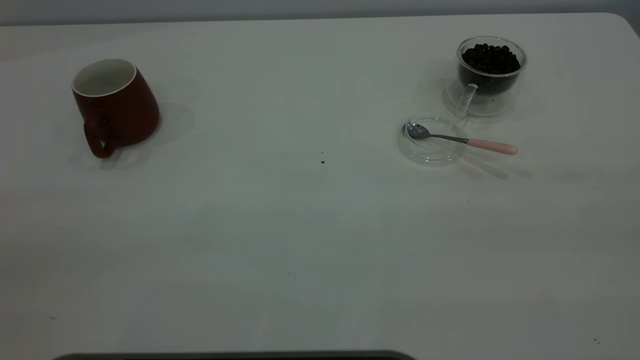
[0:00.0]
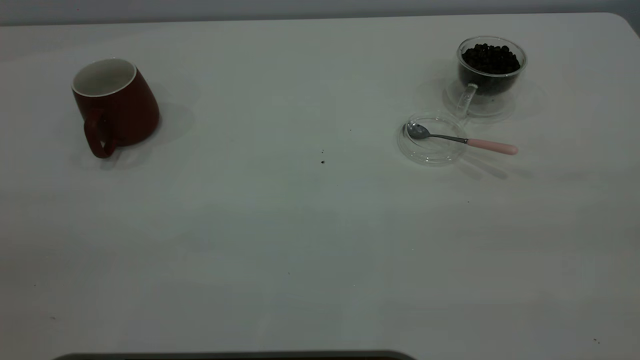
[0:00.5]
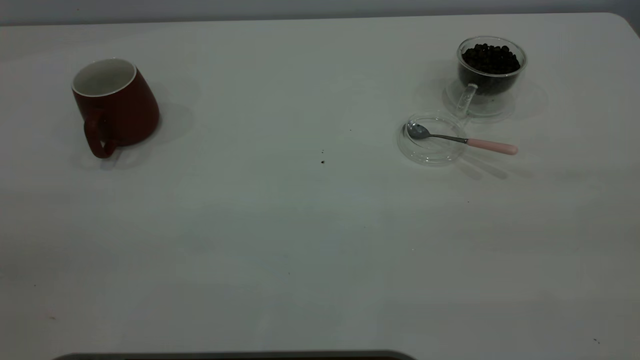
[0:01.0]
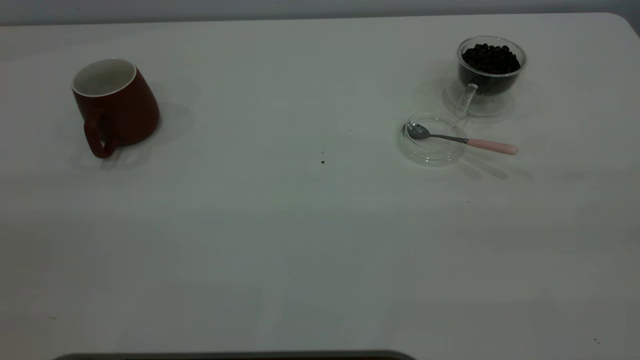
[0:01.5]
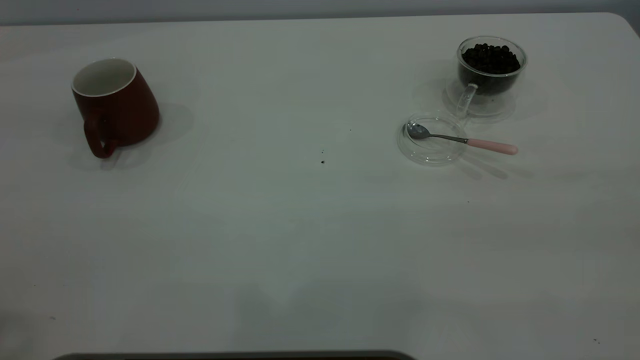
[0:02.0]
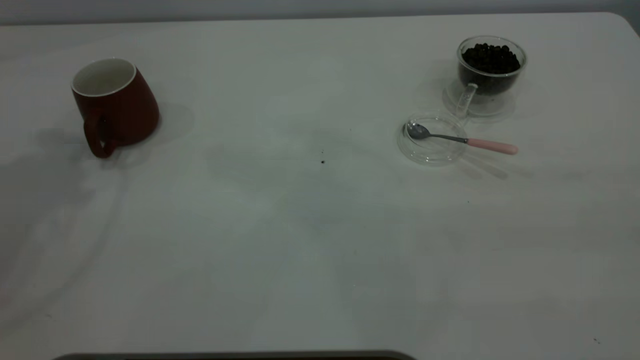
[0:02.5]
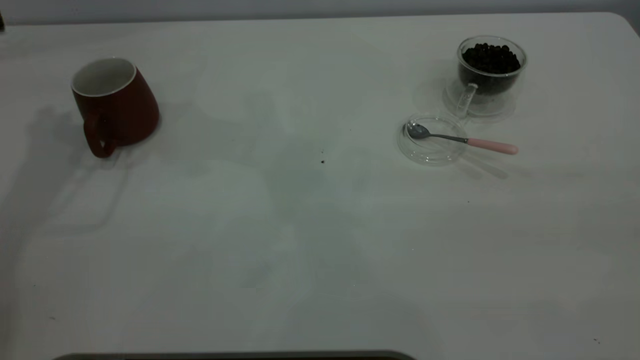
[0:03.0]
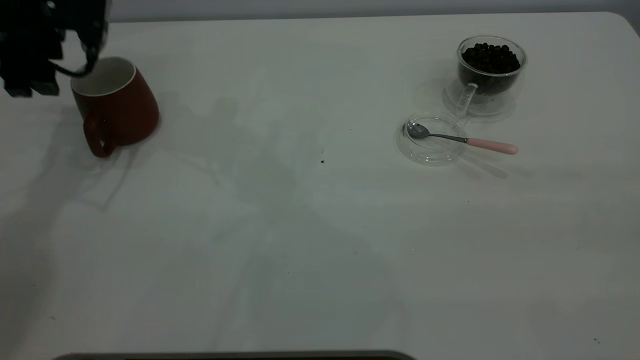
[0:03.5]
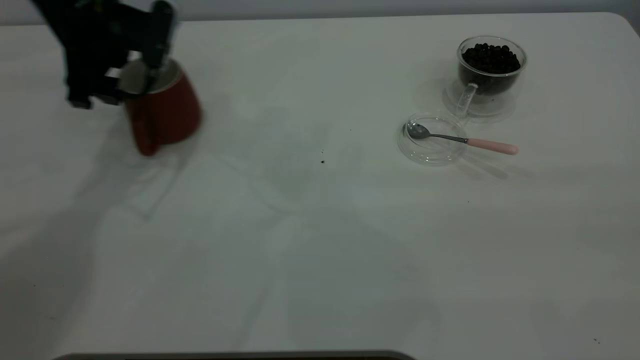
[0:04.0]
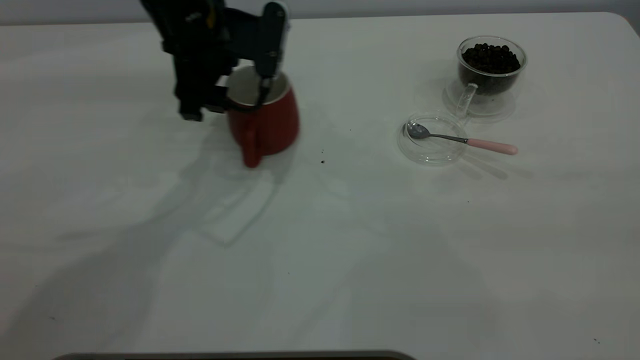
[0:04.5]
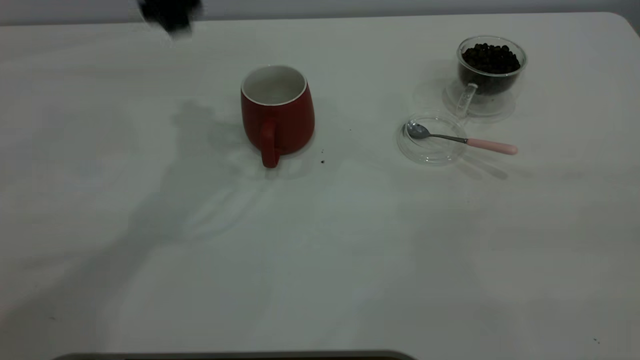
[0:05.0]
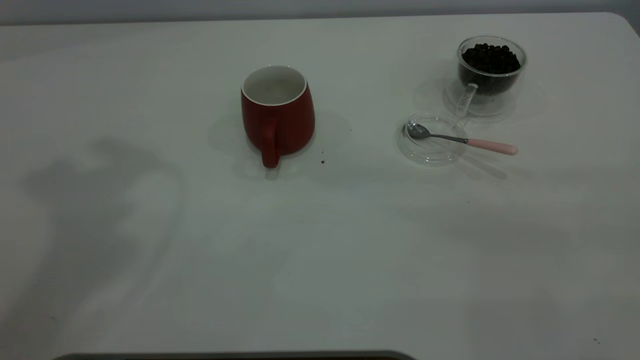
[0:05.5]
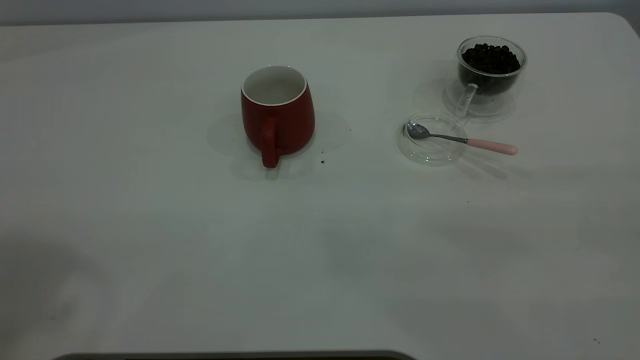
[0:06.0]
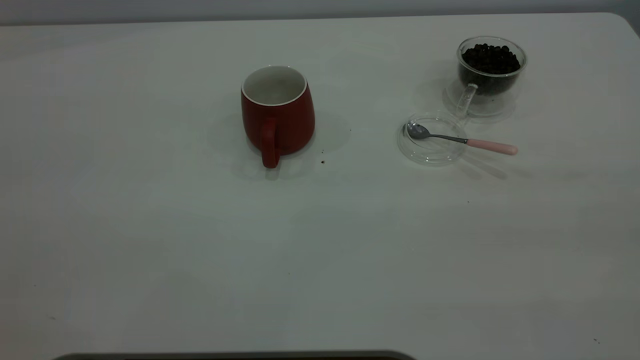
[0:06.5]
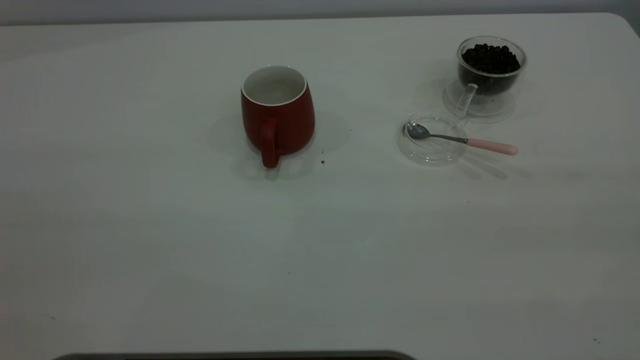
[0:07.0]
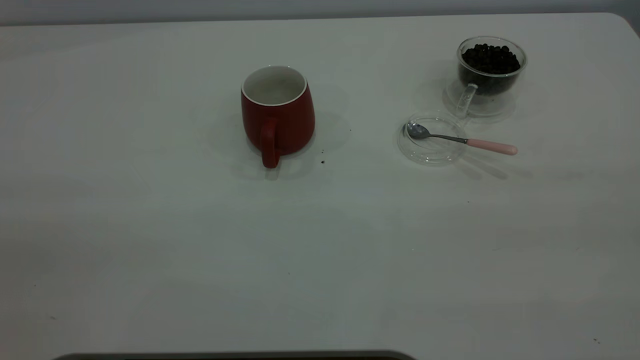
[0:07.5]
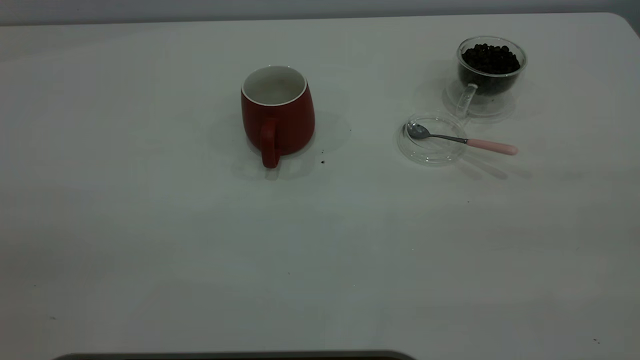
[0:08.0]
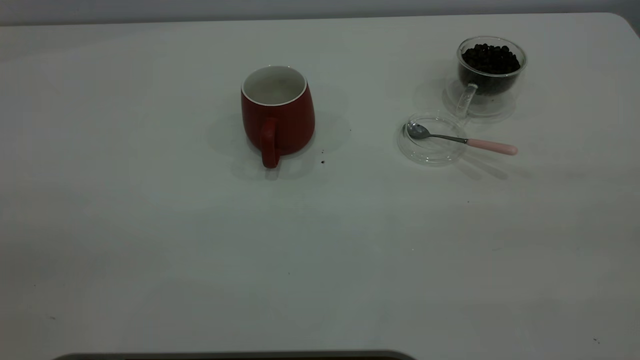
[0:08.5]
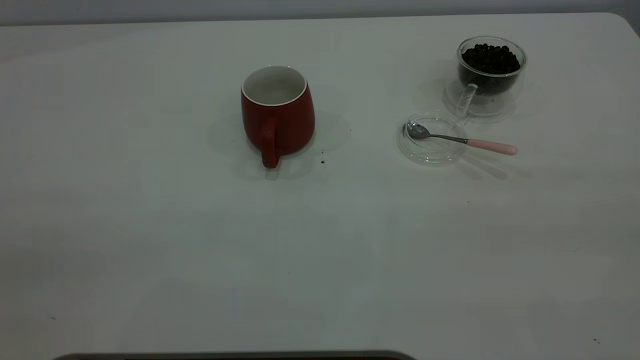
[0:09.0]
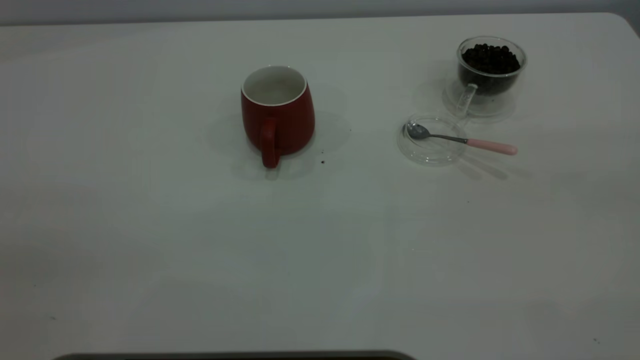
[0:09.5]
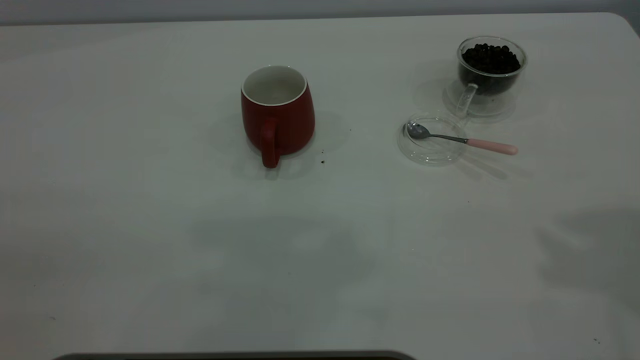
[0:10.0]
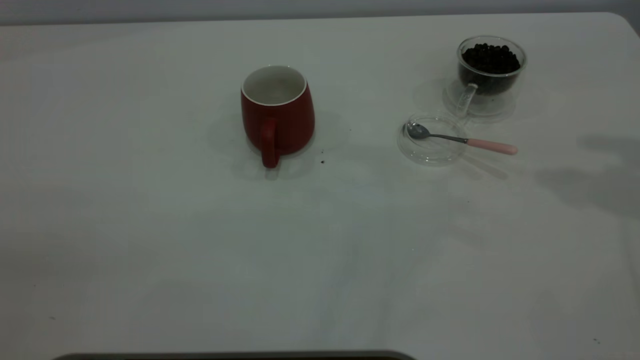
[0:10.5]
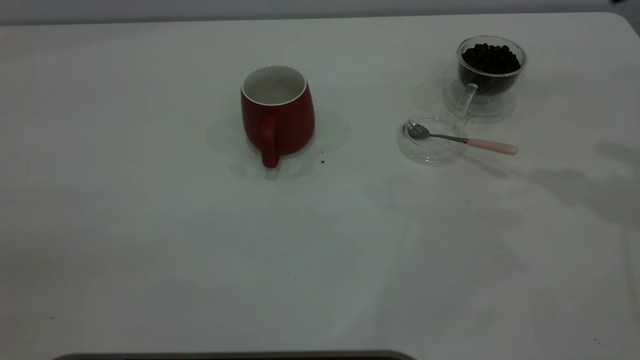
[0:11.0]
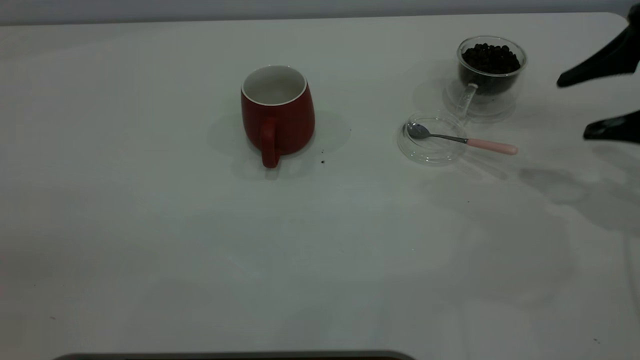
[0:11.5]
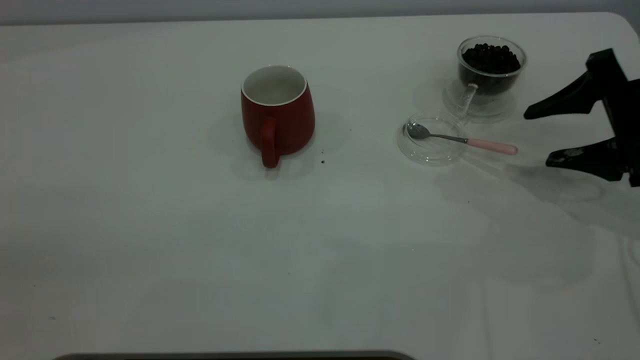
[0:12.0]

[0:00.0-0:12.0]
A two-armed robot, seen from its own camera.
Task of the whole recording: the left gripper place the red cup in the center of the table, the right gripper take the pink spoon from the cup lid and scoop out the coffee beans from the coffee cup and put them into the red cup, the right gripper put the spoon back into the cup lid.
Step, 0:00.0 to 0:04.5: Move the cup to the center of view.
0:02.0 to 0:04.0: The left gripper travels downward and forward by roughly 40 cm.
0:04.0 to 0:06.0: The left gripper goes approximately 50 cm upward and backward.
0:10.0 to 0:12.0: The right gripper moves downward, some 35 cm.

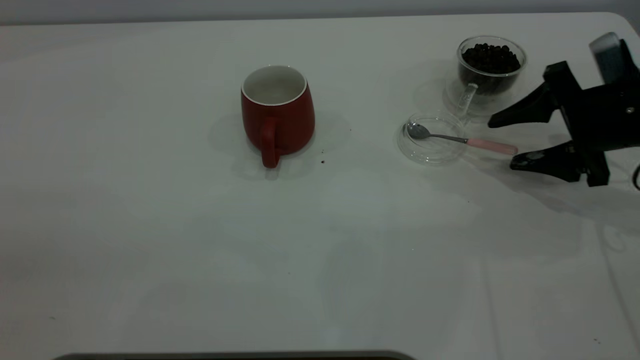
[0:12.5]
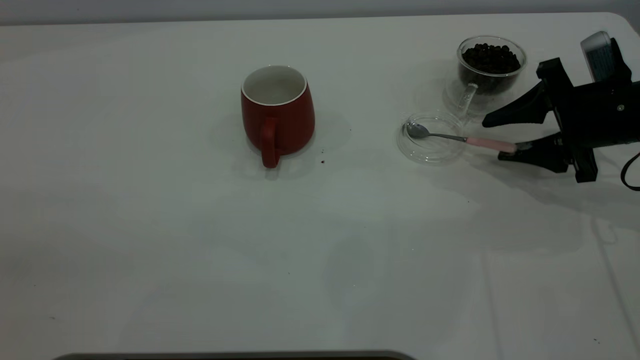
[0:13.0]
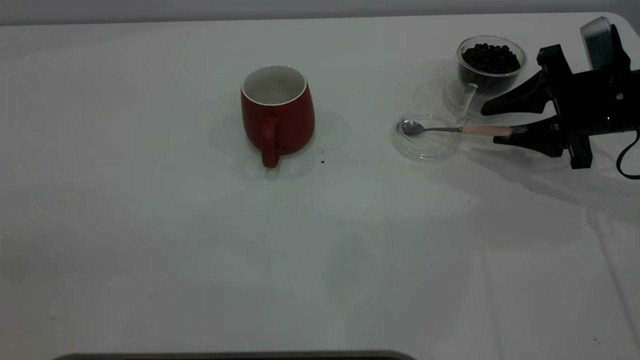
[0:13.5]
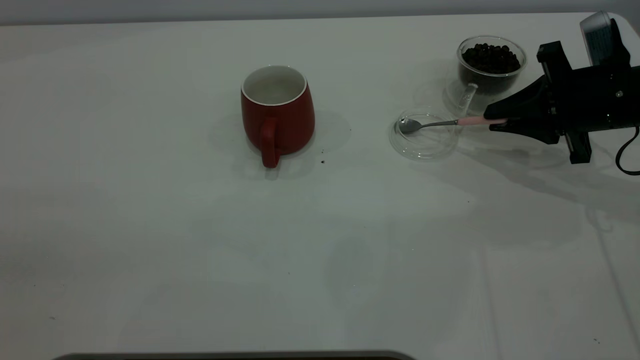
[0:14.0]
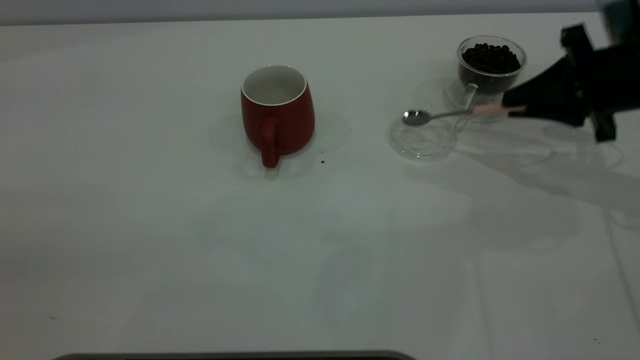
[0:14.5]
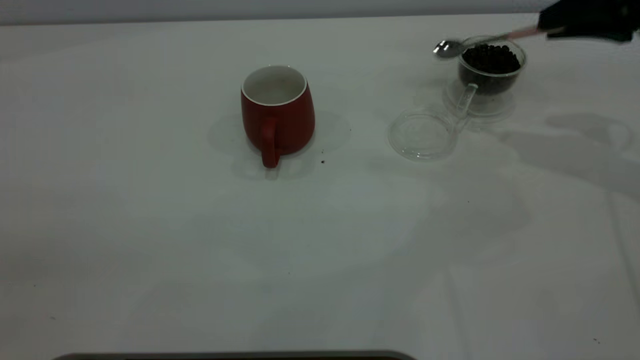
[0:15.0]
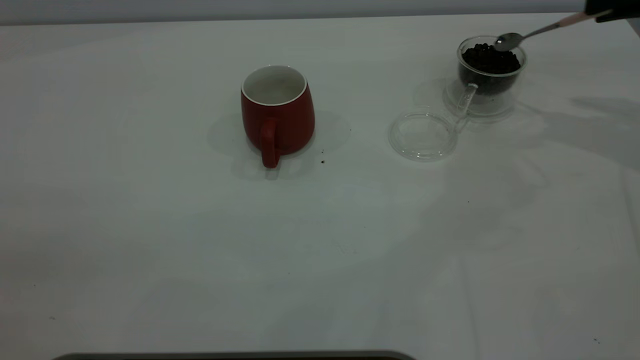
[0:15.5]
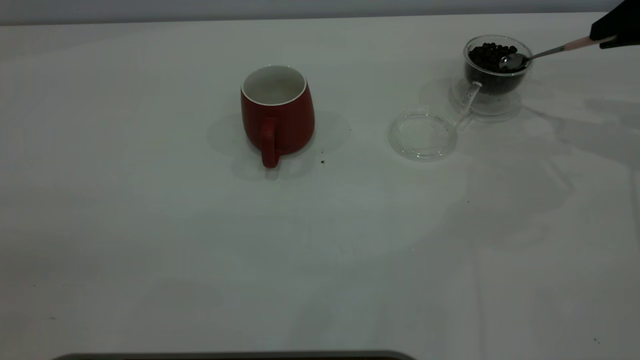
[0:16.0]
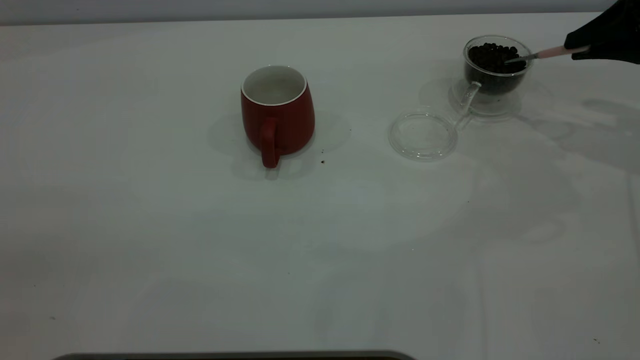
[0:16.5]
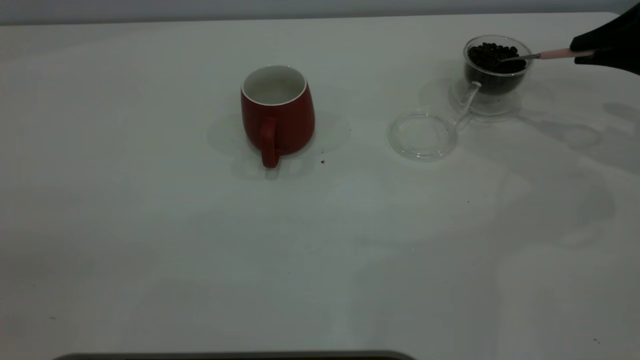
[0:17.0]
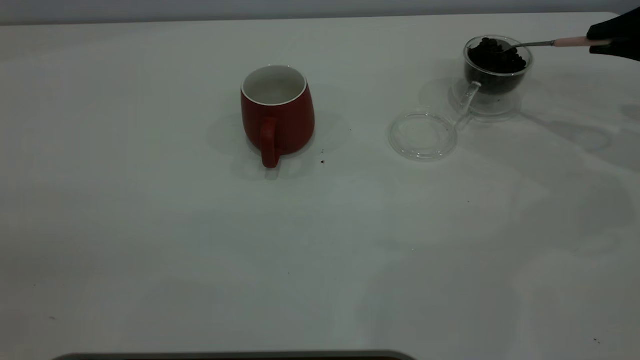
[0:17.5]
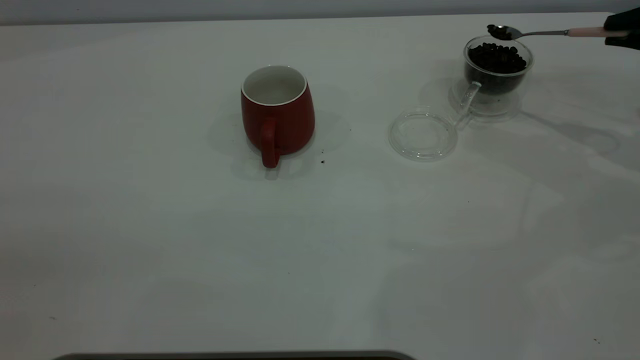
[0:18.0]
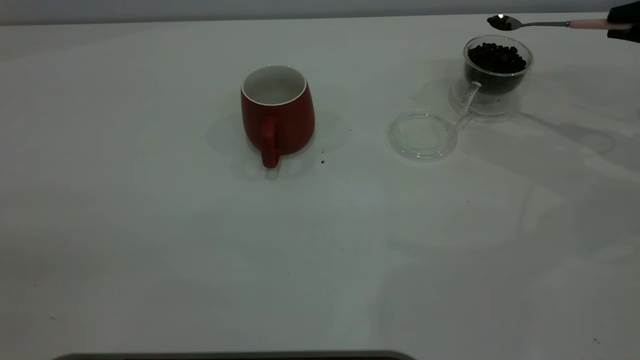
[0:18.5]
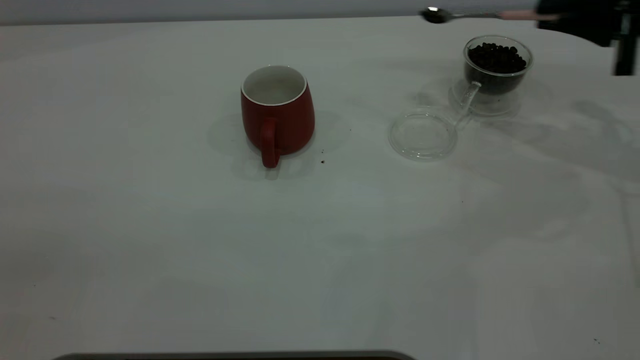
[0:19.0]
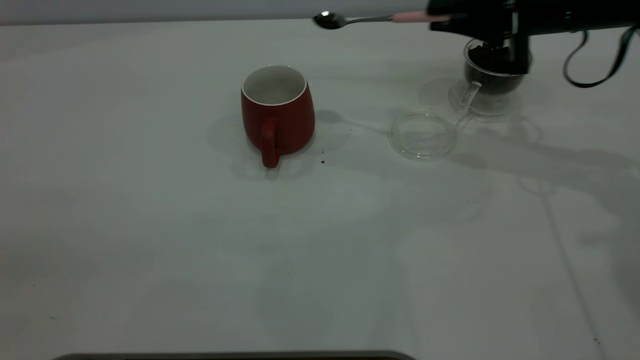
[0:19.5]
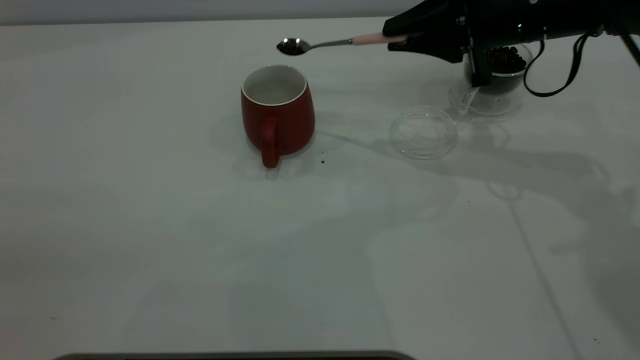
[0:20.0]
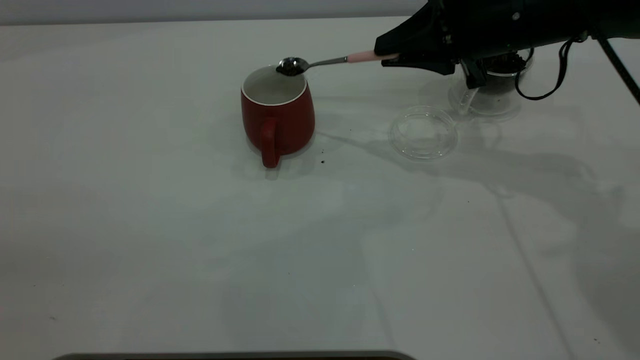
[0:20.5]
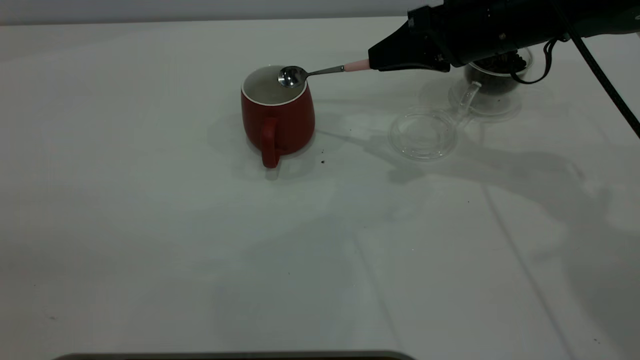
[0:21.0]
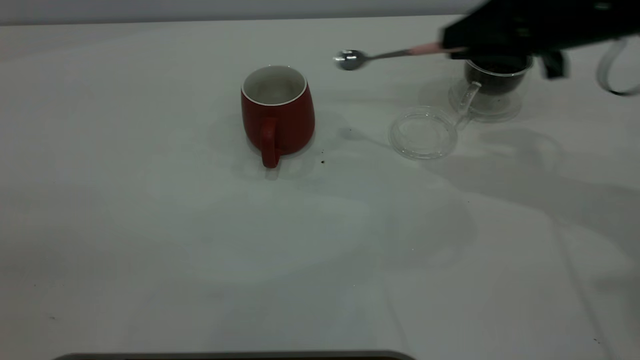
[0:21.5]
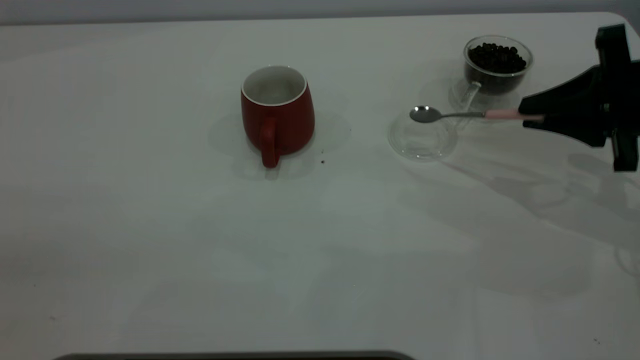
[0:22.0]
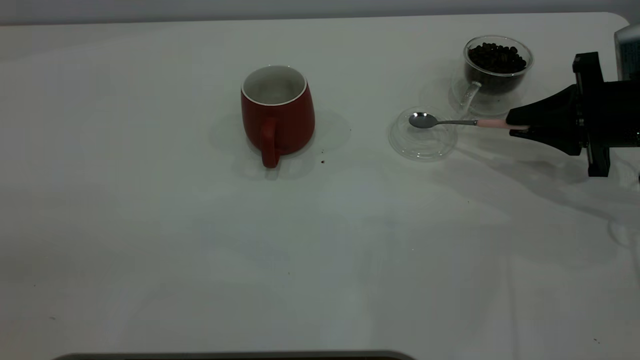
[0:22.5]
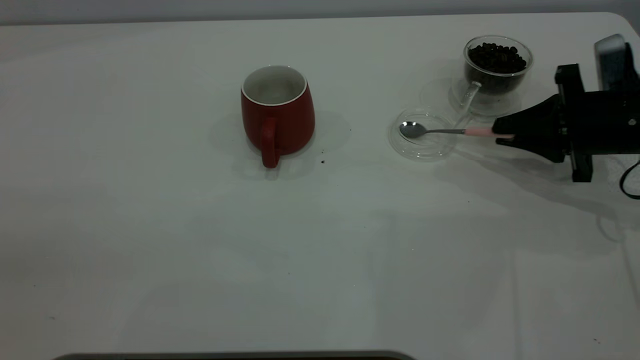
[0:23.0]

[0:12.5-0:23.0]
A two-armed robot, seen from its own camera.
Task of the whole recording: the left gripper place the red cup in the center of the table, the right gripper take the pink spoon from the cup lid and scoop out the coffee beans from the coffee cup and put them into the red cup, the right gripper put the spoon back into the cup lid.
Step, 0:12.5 to 0:14.5: Pick up the spoon.
Step, 0:15.0 to 0:21.0: Scoop a spoonful of beans into the cup.
0:12.5 to 0:14.5: The right gripper closes.
0:14.5 to 0:16.5: The right gripper shifts about 5 cm to the right.
0:19.0 to 0:21.0: The right gripper travels to the left by some 15 cm.
0:21.0 to 0:23.0: The right gripper shifts some 15 cm to the right and downward.
